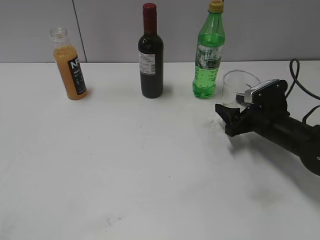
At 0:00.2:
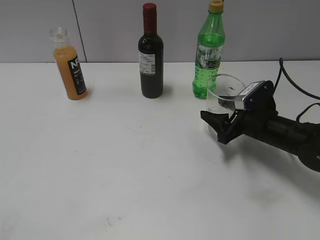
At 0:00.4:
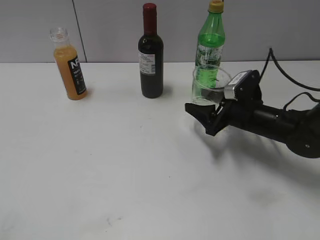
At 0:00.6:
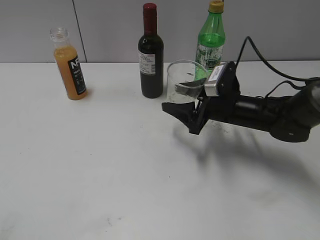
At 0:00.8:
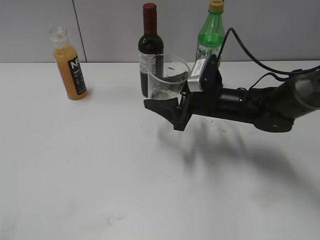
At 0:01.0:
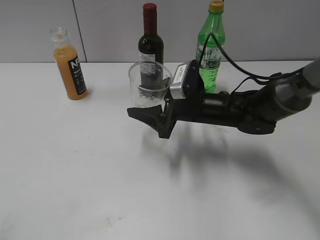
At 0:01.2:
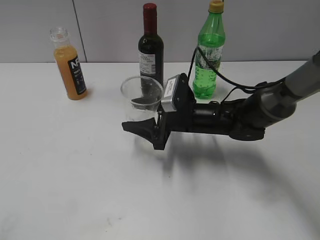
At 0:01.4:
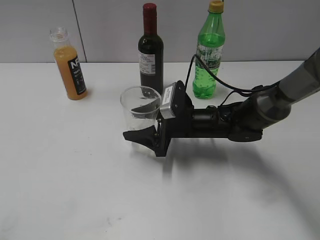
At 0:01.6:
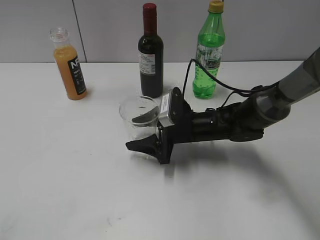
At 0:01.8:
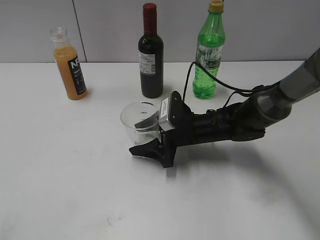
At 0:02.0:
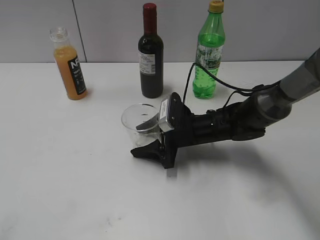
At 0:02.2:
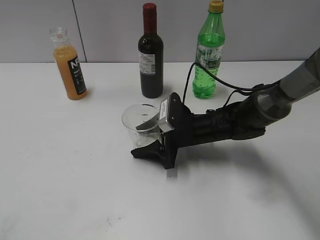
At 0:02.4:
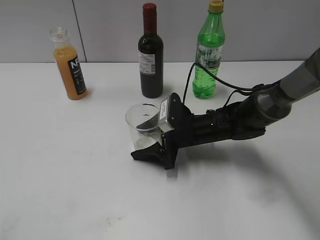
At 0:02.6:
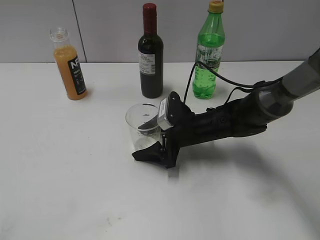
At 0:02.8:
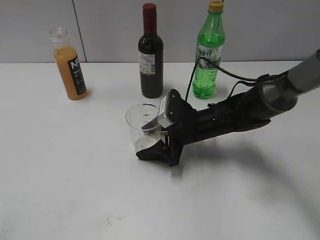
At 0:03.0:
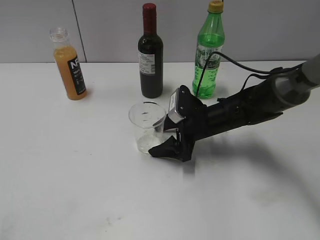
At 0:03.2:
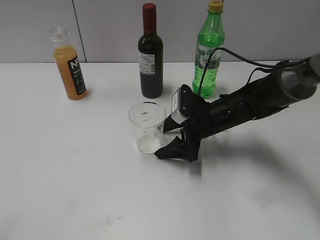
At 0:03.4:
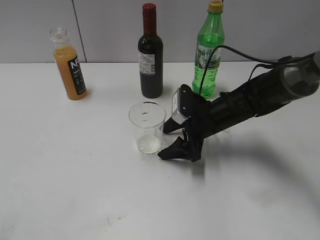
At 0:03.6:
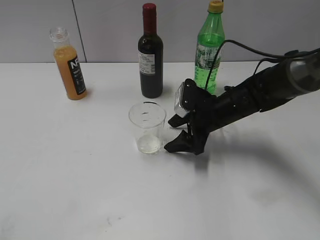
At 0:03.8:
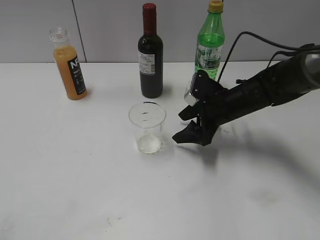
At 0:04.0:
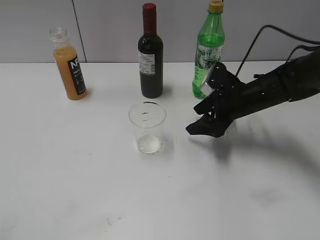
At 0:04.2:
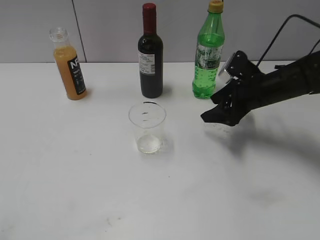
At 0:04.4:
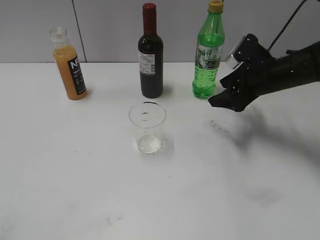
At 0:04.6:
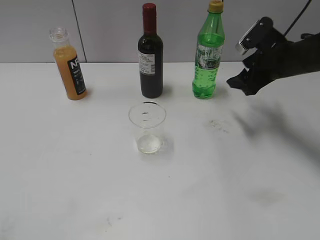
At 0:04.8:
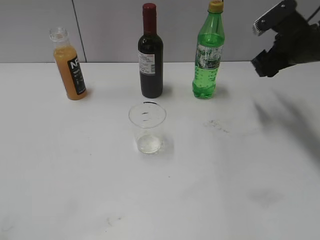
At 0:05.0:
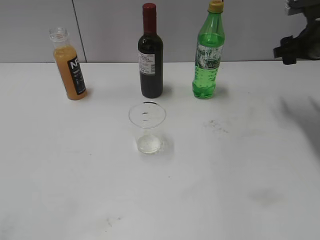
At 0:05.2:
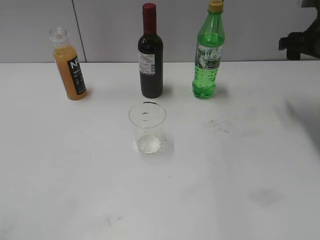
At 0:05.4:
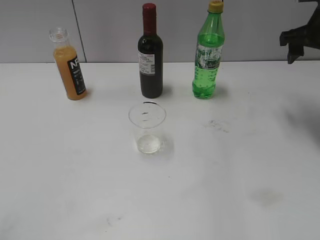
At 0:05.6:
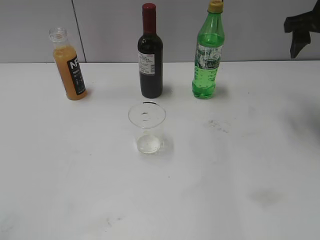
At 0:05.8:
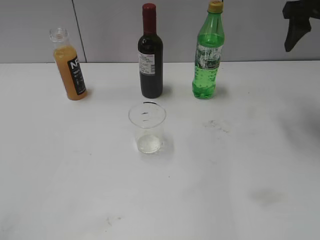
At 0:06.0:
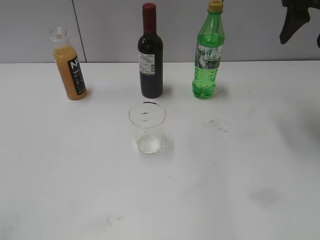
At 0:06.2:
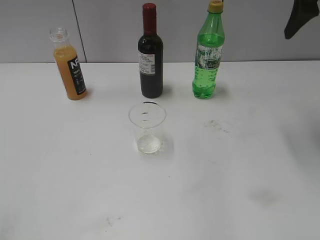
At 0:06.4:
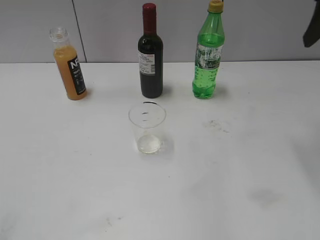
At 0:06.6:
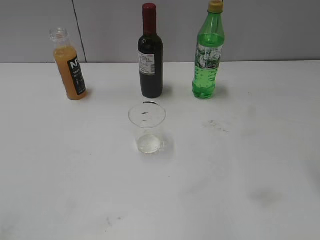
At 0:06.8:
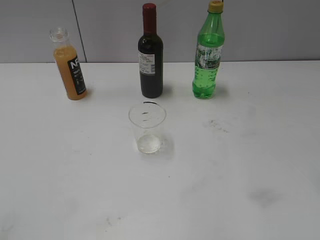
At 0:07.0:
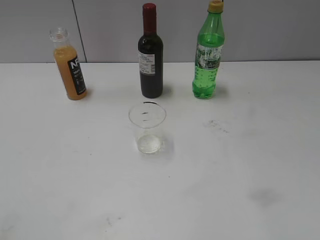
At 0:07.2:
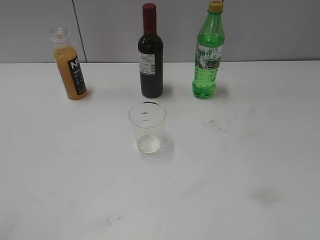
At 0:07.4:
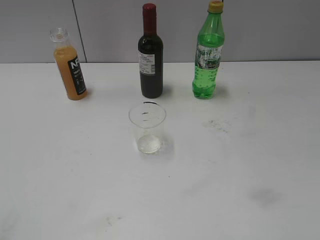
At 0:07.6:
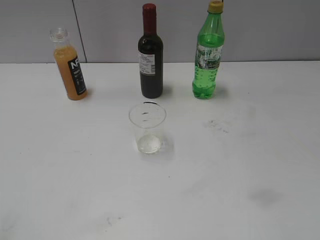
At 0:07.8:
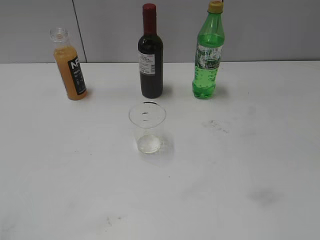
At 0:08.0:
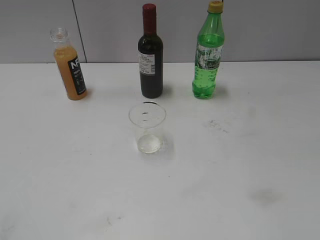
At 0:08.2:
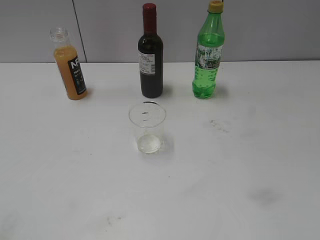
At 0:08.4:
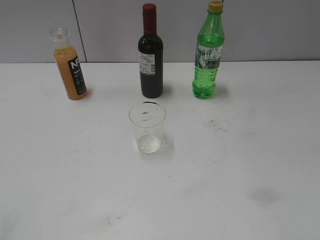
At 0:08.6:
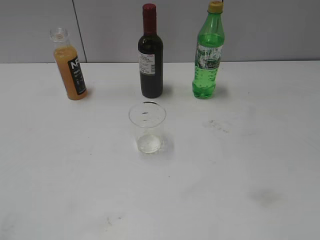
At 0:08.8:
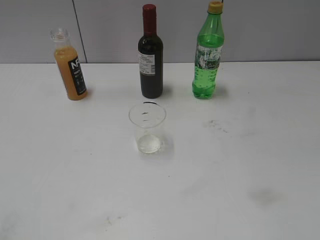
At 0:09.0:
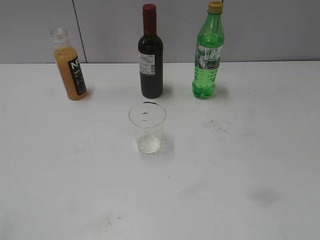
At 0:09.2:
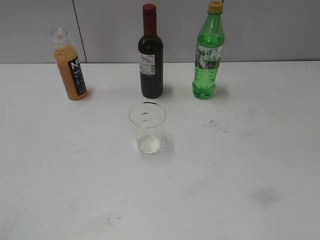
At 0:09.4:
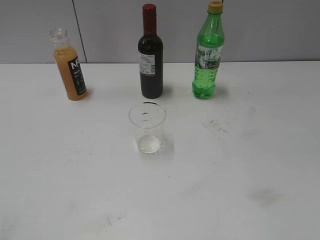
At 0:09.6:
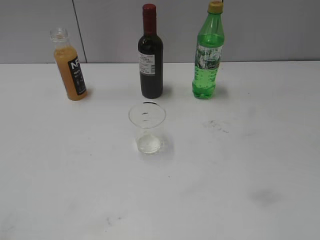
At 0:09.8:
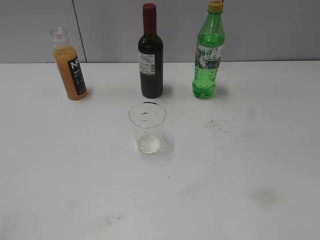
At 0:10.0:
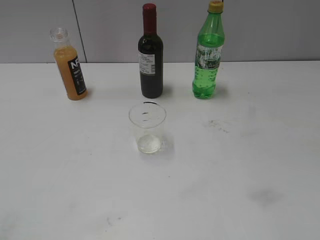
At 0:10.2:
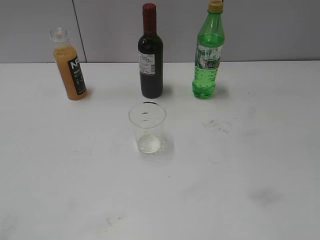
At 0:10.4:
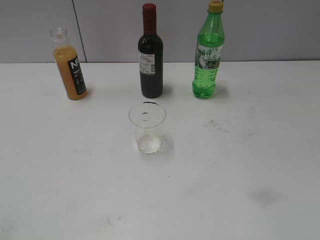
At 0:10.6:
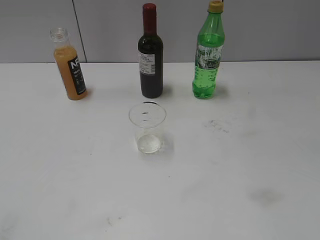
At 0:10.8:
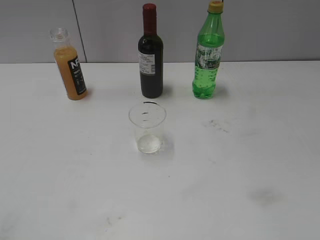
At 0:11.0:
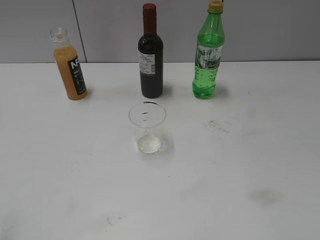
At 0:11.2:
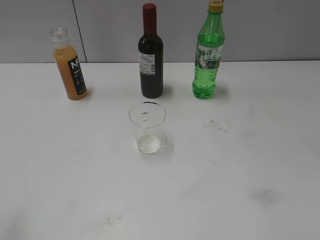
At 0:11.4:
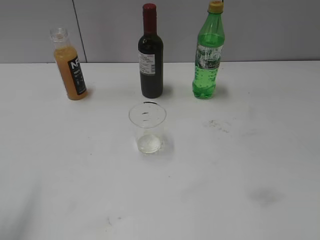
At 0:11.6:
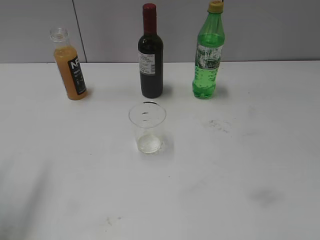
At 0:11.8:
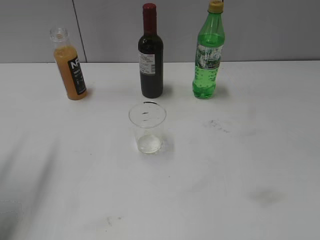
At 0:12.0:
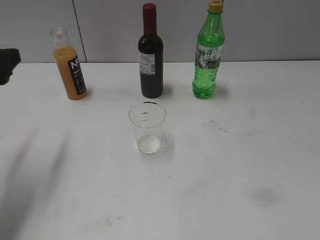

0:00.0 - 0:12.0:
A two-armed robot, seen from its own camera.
Step, 0:00.0 - 0:03.2: Place the transparent cup on the table with right gripper.
0:00.0 - 0:01.6: The right gripper heads to the left, covering some 15 cm.
0:01.6 - 0:03.0: The right gripper opens its fingers.
0:03.0 - 0:04.4: The right gripper travels to the right and upward by approximately 15 cm.
0:04.4 - 0:06.0: The right gripper travels upward by about 20 cm.
0:06.0 - 0:07.6: The right gripper heads backward, covering about 35 cm.
0:09.0 - 0:10.4: Neither gripper changes place.
0:10.4 - 0:12.0: The left gripper heads forward, covering roughly 25 cm.

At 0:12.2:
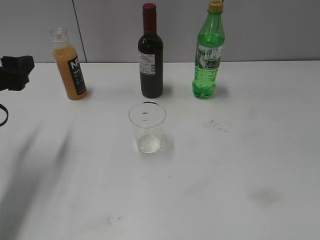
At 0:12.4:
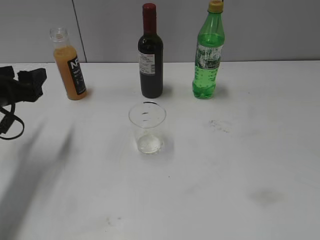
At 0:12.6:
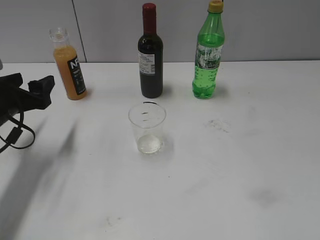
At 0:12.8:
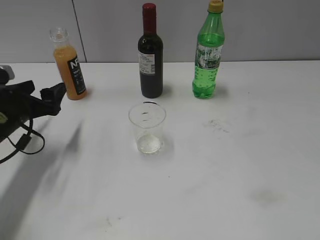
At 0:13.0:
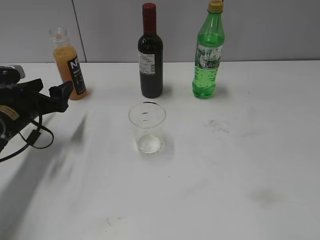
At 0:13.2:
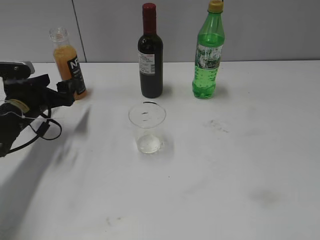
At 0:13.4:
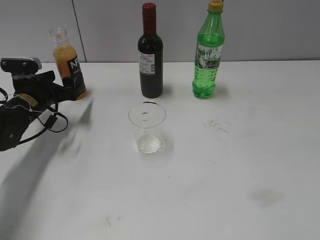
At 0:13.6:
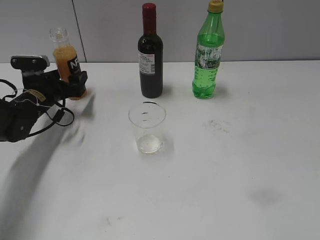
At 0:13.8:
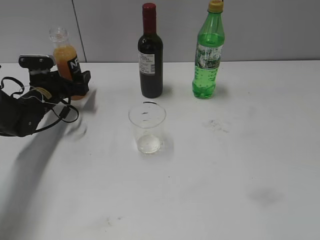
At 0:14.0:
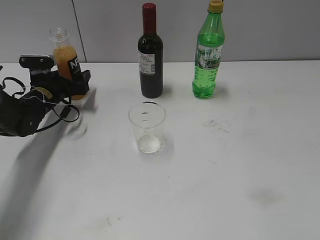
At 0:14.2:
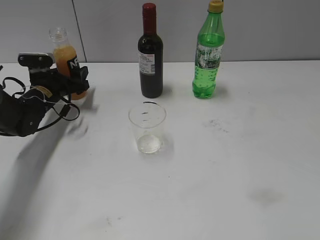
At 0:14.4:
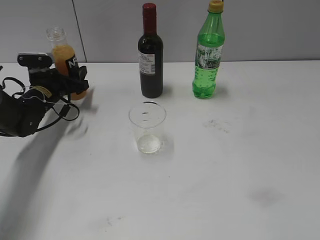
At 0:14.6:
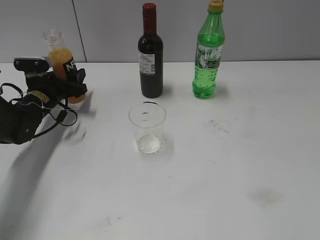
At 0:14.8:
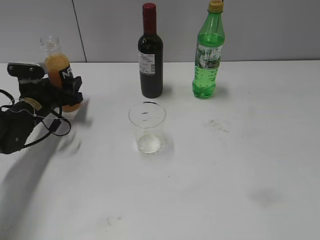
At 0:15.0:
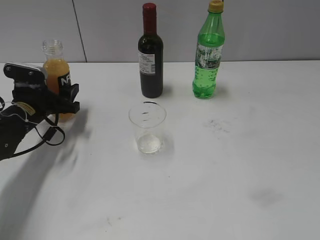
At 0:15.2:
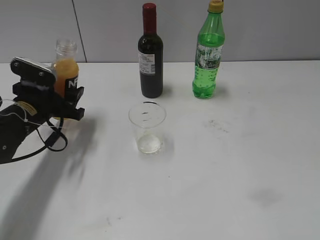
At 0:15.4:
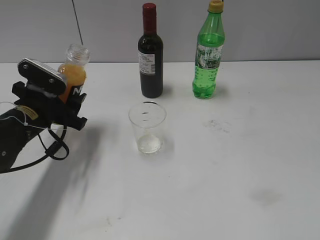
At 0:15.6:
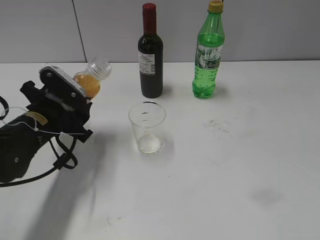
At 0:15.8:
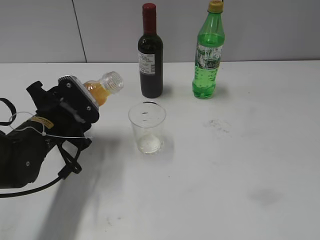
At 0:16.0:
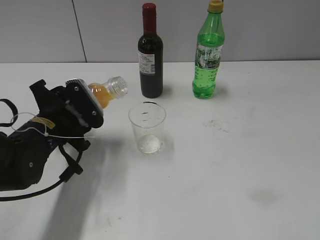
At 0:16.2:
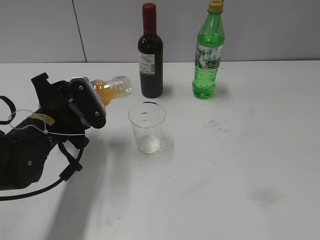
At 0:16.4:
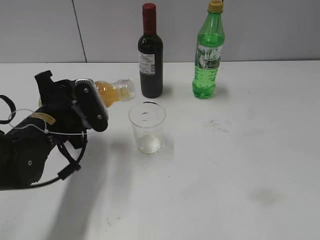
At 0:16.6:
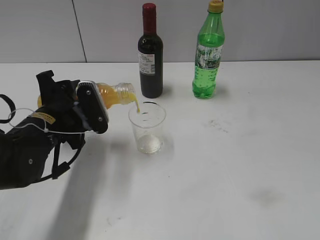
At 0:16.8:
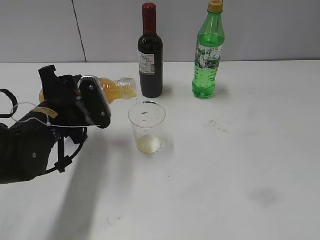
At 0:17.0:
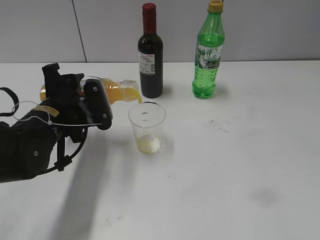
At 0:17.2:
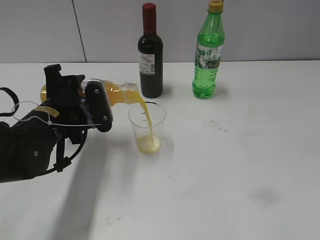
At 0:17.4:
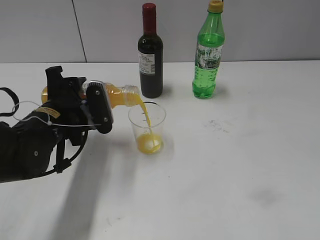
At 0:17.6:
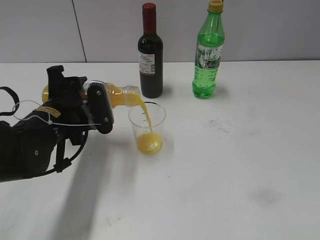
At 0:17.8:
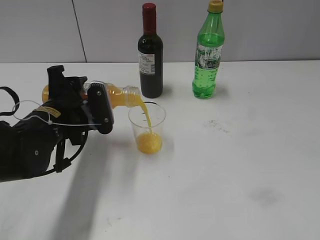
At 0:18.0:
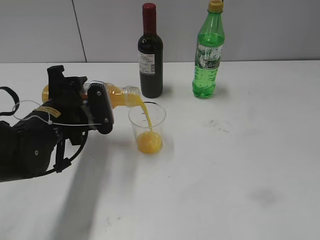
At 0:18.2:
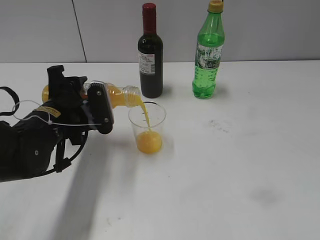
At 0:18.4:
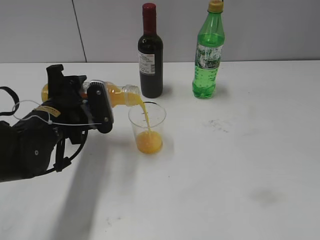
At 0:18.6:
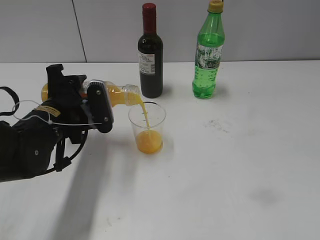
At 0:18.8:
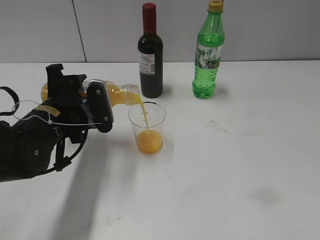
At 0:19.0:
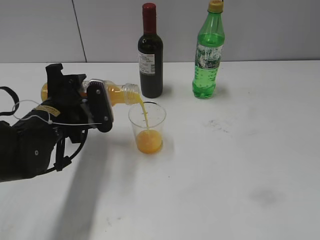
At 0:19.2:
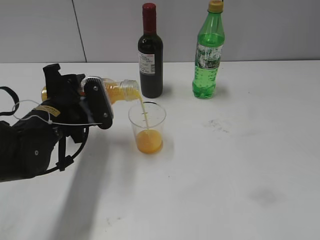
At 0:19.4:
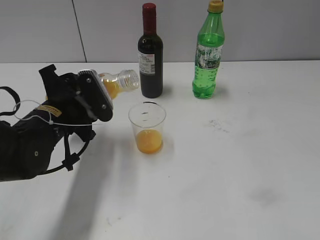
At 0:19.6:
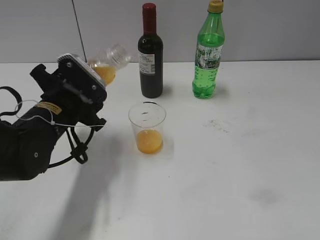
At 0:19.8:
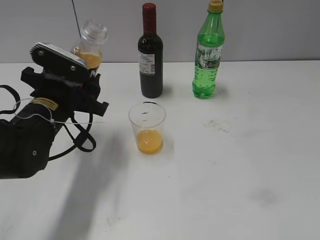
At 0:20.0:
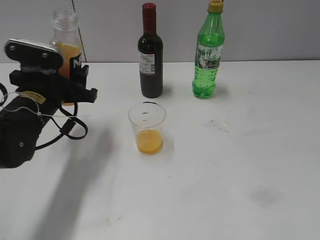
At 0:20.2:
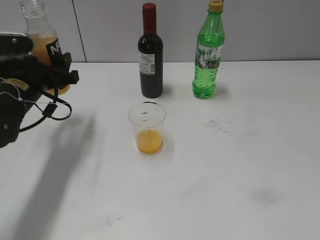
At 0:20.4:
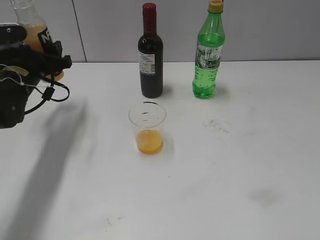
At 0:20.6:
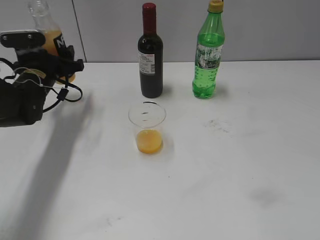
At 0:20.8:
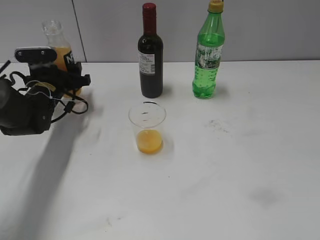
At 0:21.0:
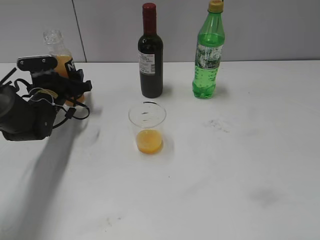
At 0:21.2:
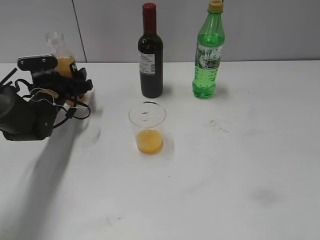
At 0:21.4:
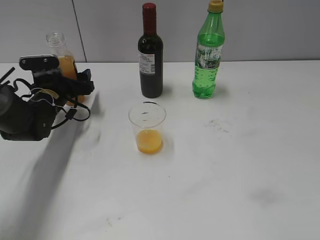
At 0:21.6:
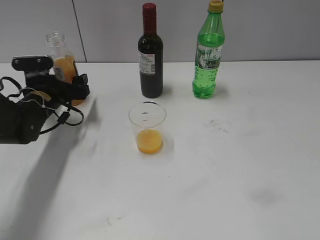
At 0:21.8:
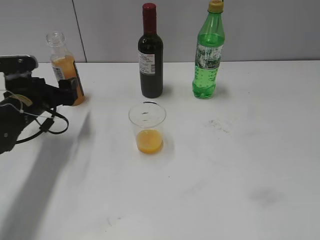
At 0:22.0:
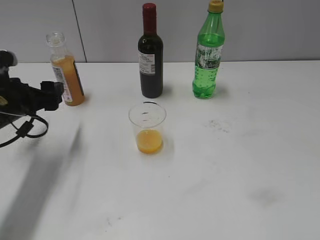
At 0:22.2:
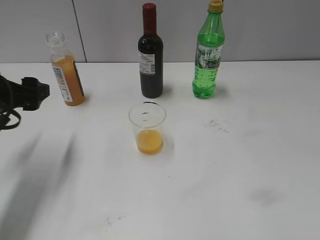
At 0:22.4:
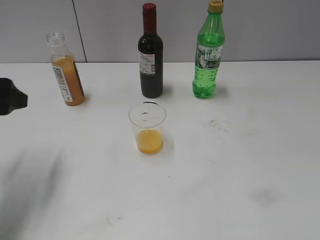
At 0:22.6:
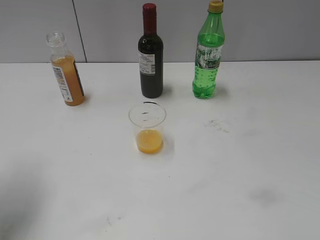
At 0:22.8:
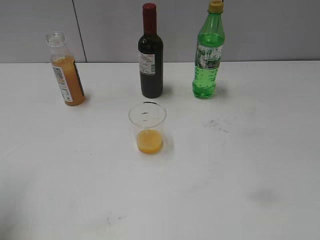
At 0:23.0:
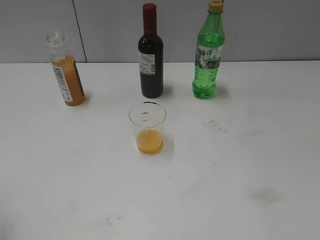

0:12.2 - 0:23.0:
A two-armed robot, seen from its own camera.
Step, 0:12.2 - 0:14.2: Grasp the bottle with orange juice with left gripper.
Step, 0:14.4 - 0:19.4: Pour the orange juice from bottle to cup with left gripper.
Step, 0:19.6 - 0:21.4: Place the orange juice bottle on the table with left gripper.
0:12.2 - 0:13.8: The left gripper moves forward and downward, some 20 cm, and opens up.
0:13.8 - 0:15.2: The left gripper travels backward by some 10 cm, and closes up.
0:15.2 - 0:16.8: The left gripper moves to the right and backward, approximately 10 cm.
0:16.8 - 0:18.4: The grippers move only a little.
0:20.0 - 0:21.4: The left gripper is displaced forward and downward by some 15 cm, and opens.
0:21.4 - 0:23.0: The left gripper is displaced backward, upward and to the left by roughly 35 cm, and closes its fingers.
